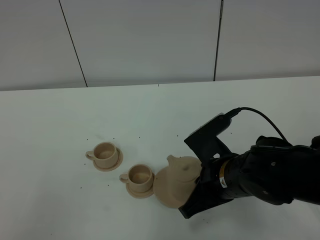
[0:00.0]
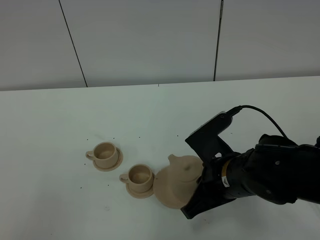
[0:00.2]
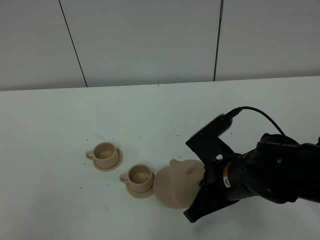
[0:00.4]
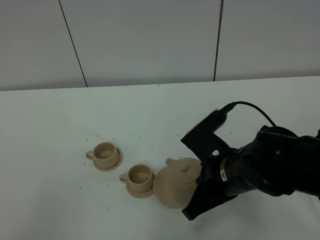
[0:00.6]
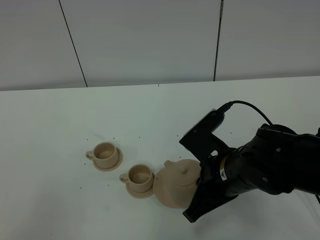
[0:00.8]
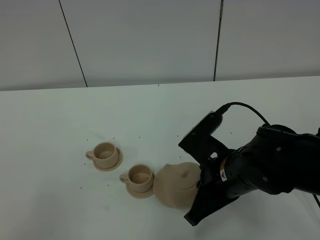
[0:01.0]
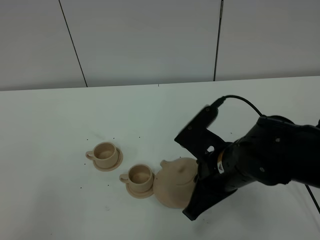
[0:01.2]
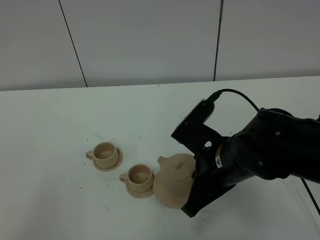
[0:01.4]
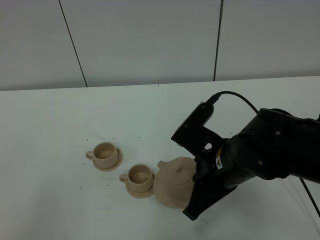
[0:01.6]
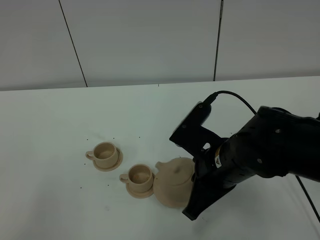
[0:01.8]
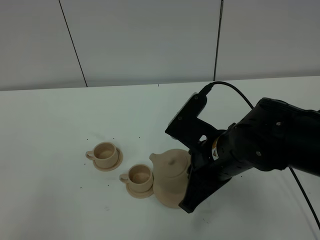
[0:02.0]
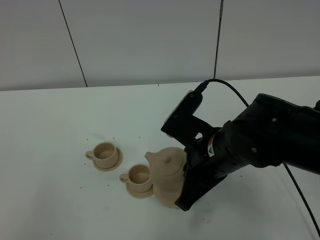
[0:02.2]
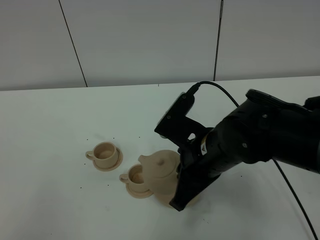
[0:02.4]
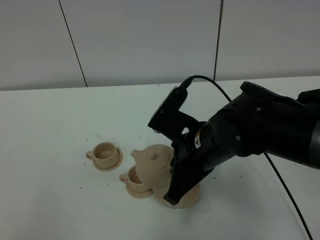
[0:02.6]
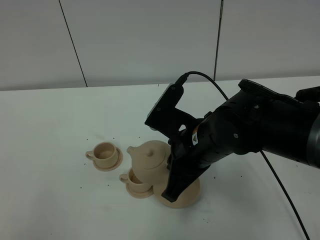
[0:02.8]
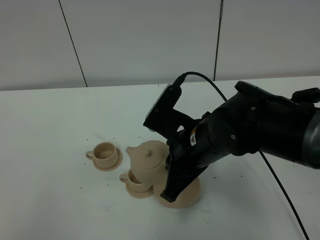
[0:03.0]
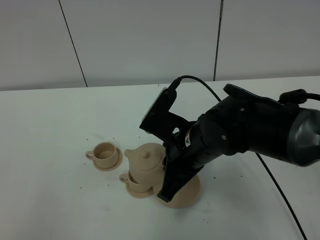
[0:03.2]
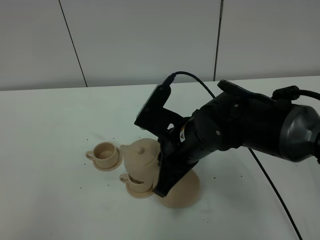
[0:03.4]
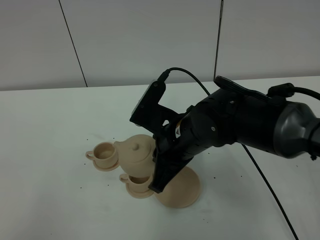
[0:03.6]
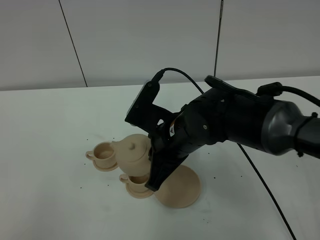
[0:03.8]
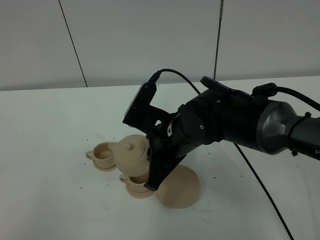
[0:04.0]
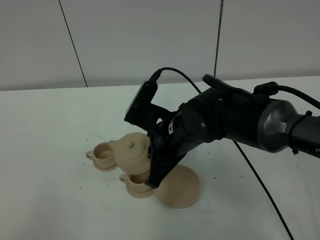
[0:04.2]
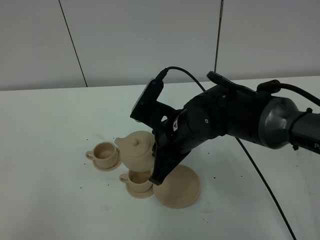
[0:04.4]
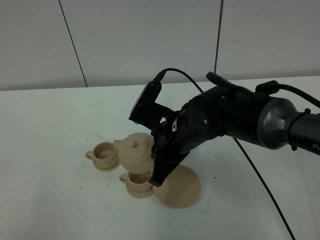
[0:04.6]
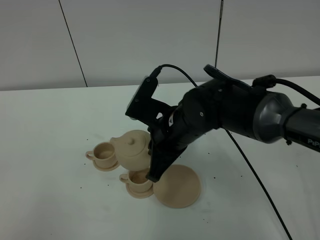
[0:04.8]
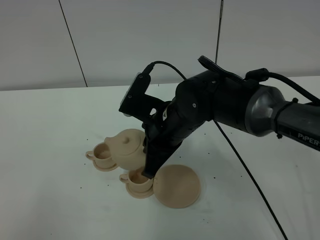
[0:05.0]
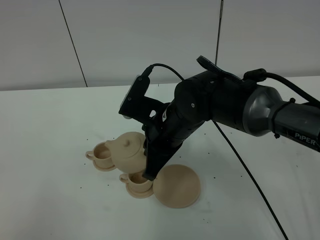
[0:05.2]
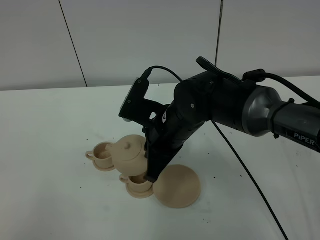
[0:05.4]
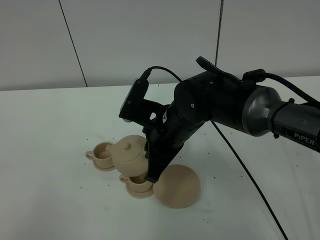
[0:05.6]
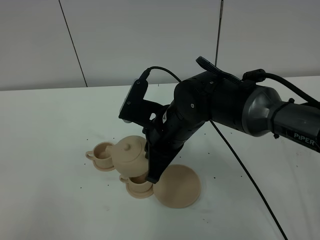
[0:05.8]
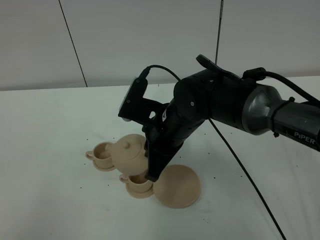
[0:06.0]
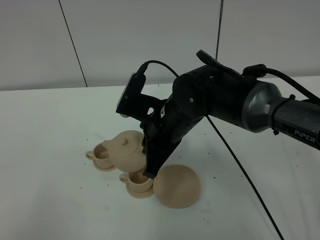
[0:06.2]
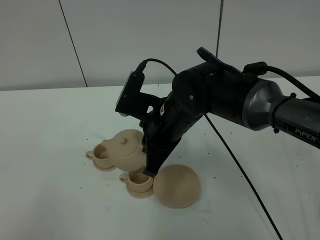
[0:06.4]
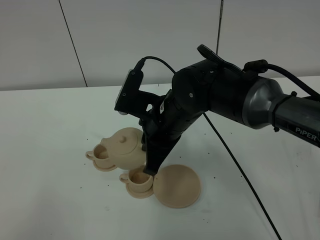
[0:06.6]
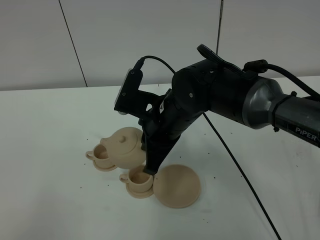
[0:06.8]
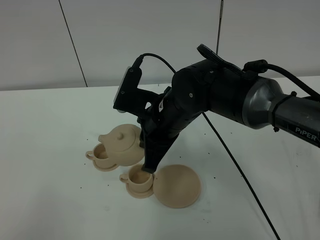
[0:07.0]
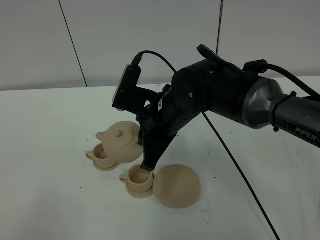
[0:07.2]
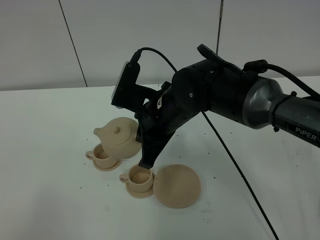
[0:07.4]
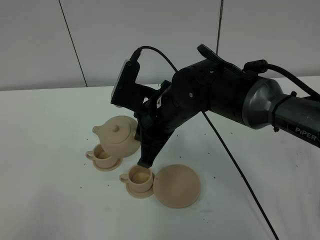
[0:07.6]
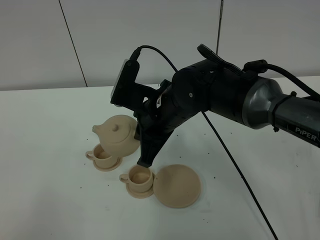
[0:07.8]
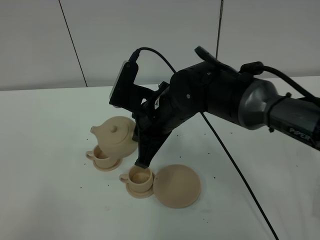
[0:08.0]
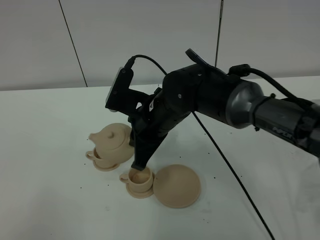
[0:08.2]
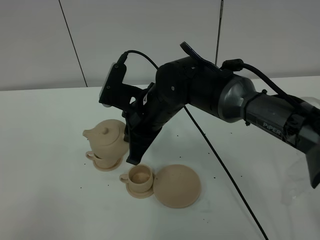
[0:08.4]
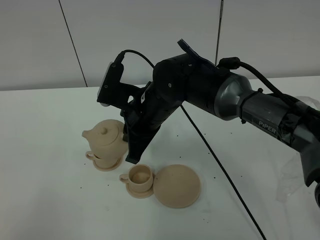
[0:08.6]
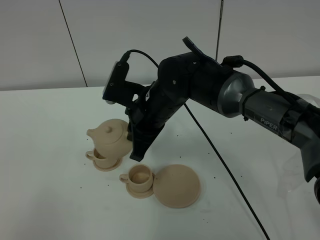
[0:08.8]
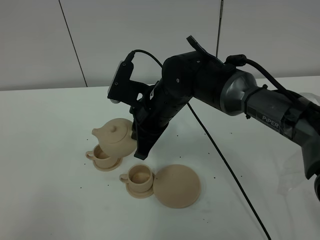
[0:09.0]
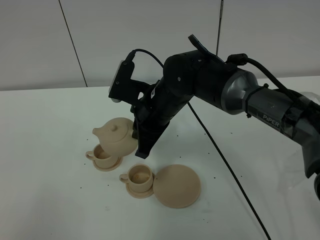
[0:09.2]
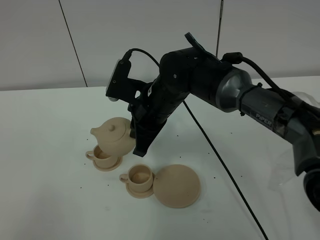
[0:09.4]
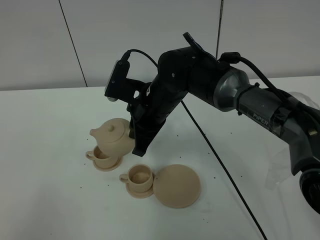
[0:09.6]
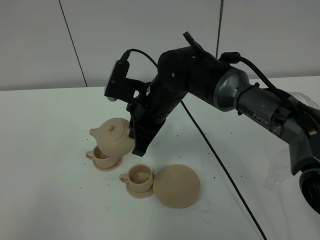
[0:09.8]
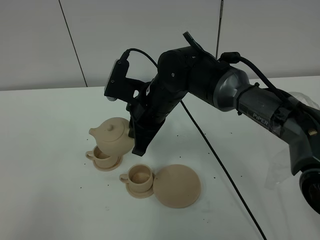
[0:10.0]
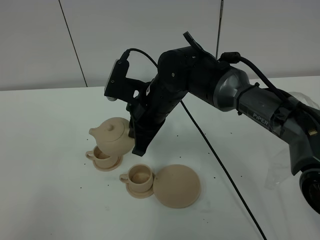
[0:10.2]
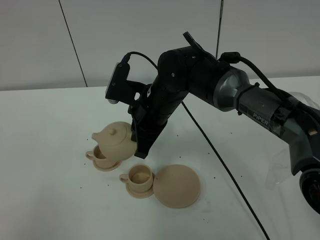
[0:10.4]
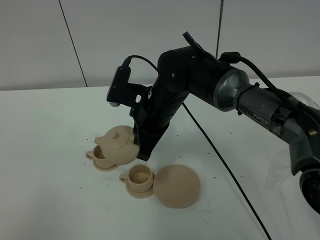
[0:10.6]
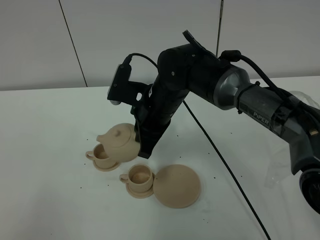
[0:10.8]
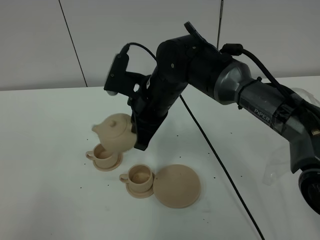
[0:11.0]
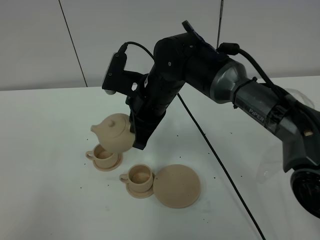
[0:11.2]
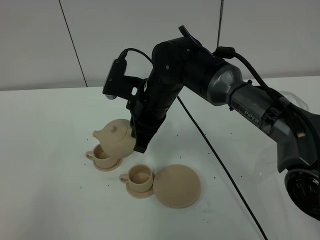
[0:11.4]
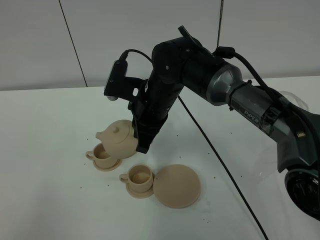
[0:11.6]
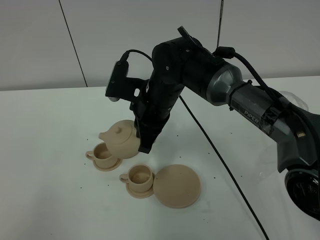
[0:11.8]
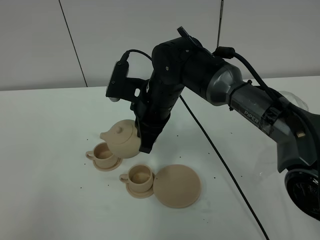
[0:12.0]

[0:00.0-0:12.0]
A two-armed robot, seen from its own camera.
Task of the whole recording: grasp the brown teapot and pour the tea into the two brown teacups one by one, put the brown teapot back in its original place.
0:00.0 to 0:01.6: The grippers move only a little.
0:01.6 to 0:03.0: There are only small adjustments of the grippers.
0:03.0 to 0:04.4: The right gripper changes place by roughly 5 cm.
0:04.4 to 0:07.6: The grippers stay close to where they were, moving slightly.
0:07.6 to 0:09.0: The grippers stay close to where they were, moving slightly.
0:09.0 to 0:10.4: The two grippers keep their place.
0:10.4 to 0:12.0: The grippers stay close to where they were, moving slightly.

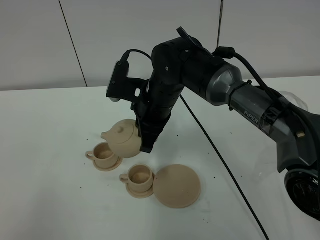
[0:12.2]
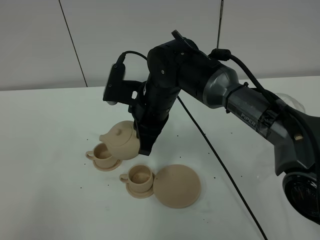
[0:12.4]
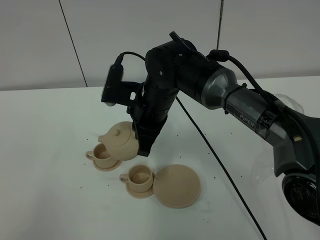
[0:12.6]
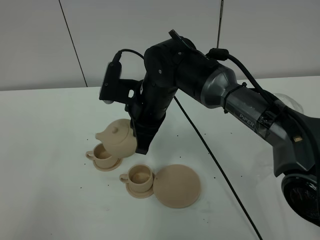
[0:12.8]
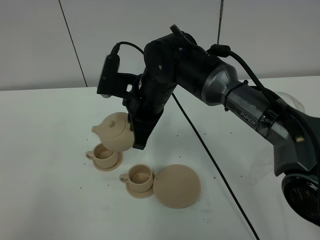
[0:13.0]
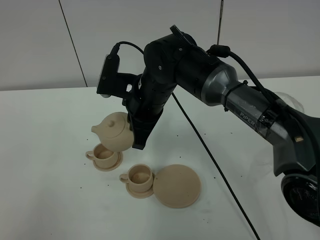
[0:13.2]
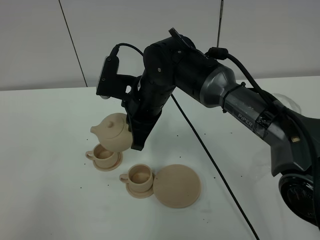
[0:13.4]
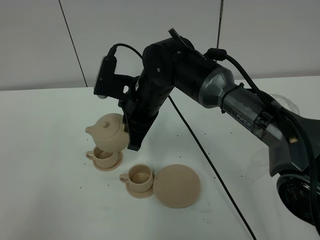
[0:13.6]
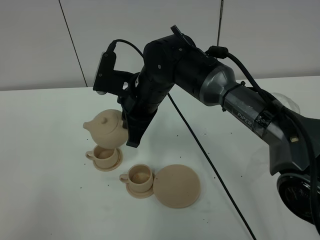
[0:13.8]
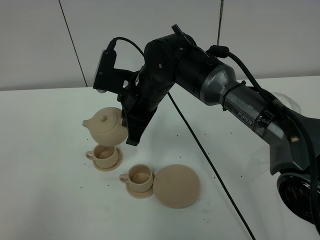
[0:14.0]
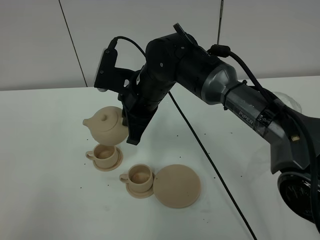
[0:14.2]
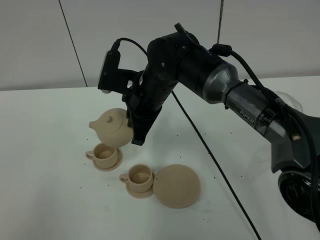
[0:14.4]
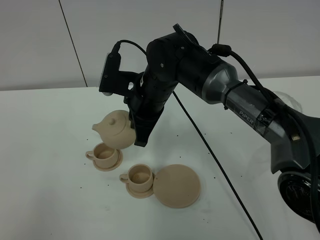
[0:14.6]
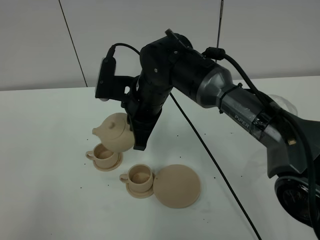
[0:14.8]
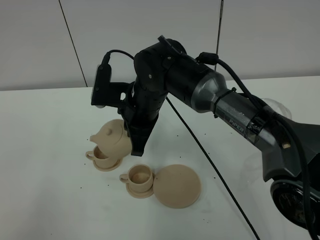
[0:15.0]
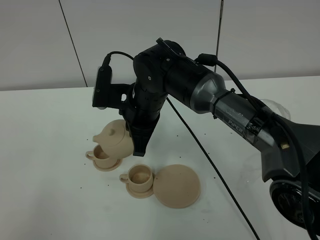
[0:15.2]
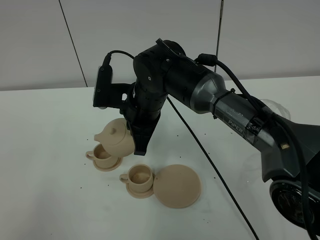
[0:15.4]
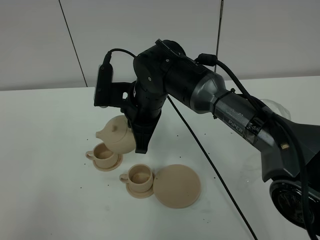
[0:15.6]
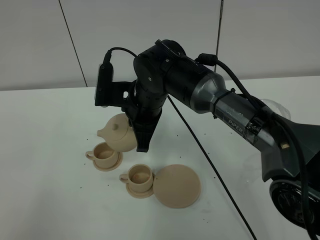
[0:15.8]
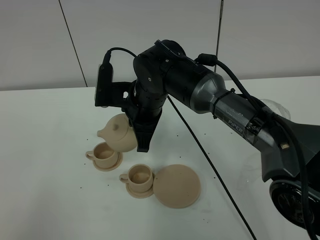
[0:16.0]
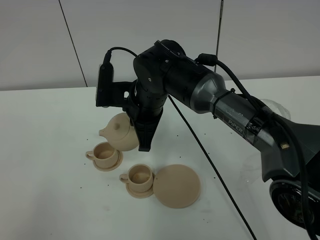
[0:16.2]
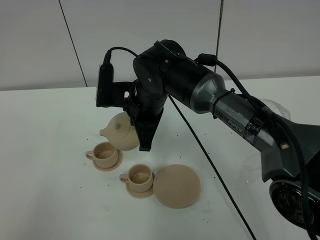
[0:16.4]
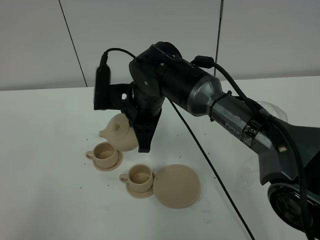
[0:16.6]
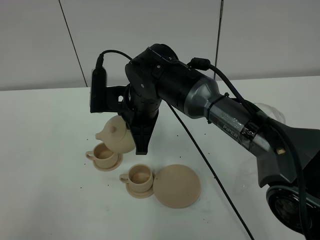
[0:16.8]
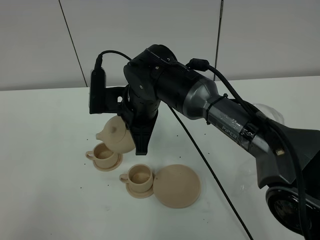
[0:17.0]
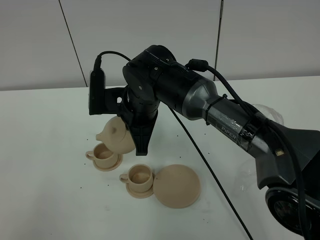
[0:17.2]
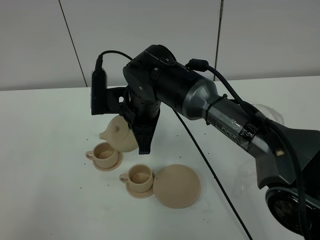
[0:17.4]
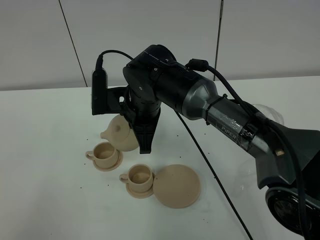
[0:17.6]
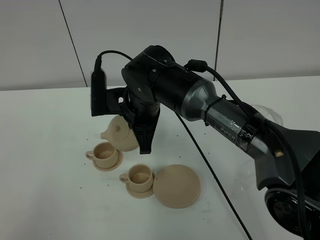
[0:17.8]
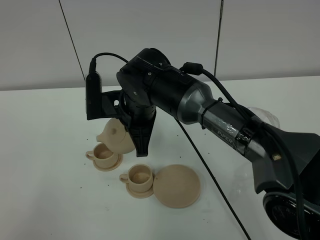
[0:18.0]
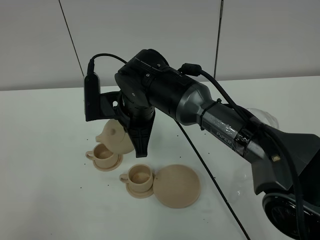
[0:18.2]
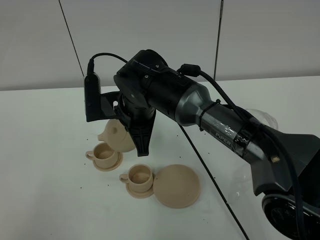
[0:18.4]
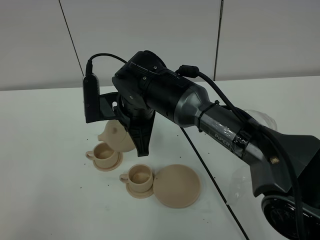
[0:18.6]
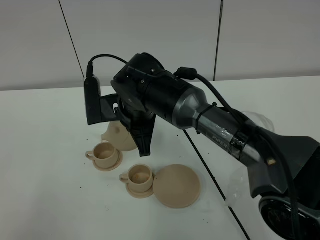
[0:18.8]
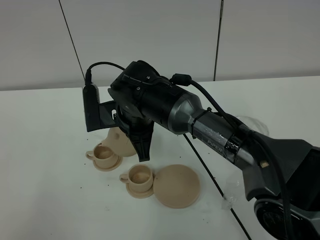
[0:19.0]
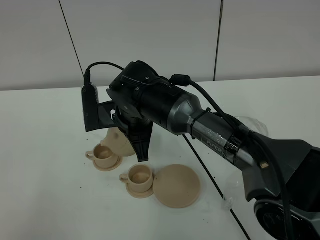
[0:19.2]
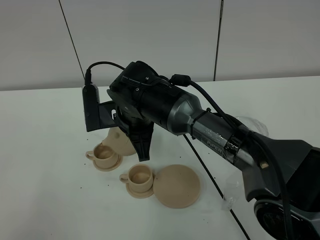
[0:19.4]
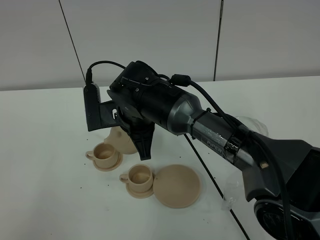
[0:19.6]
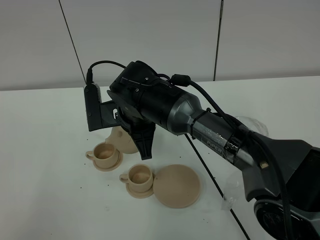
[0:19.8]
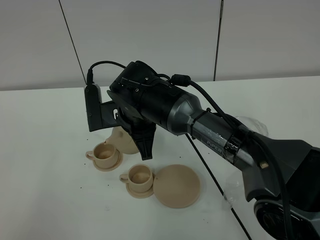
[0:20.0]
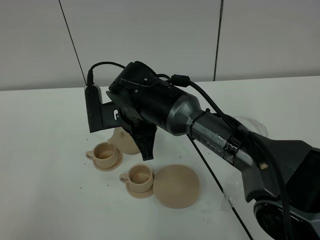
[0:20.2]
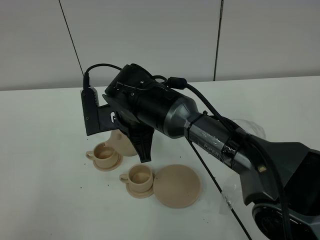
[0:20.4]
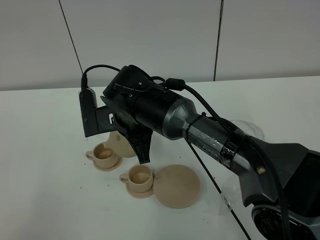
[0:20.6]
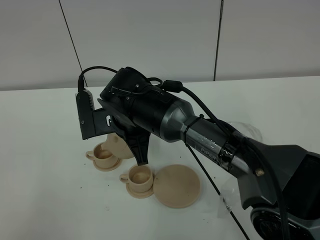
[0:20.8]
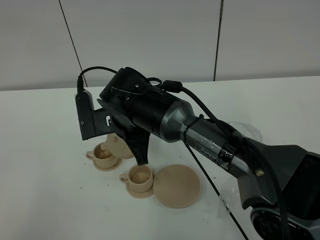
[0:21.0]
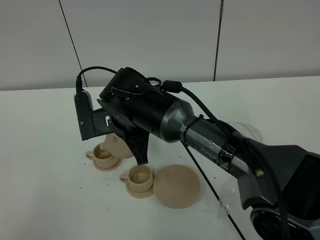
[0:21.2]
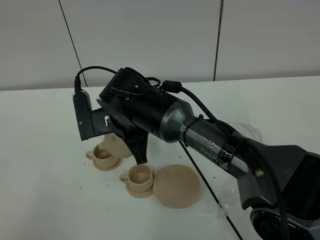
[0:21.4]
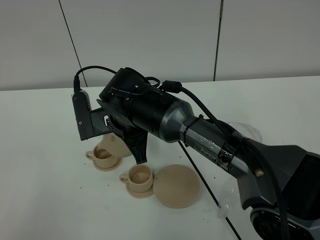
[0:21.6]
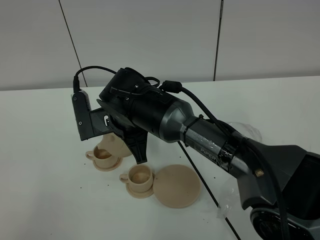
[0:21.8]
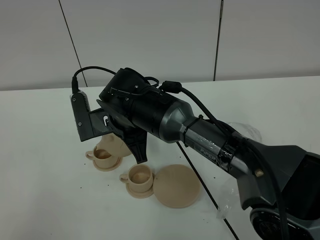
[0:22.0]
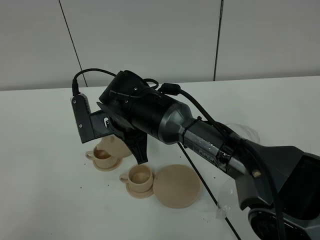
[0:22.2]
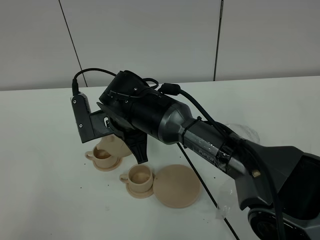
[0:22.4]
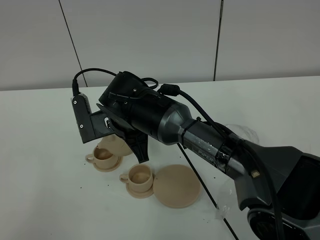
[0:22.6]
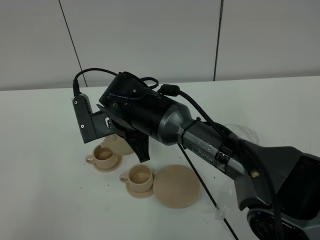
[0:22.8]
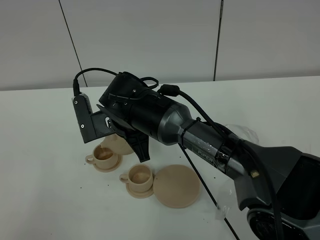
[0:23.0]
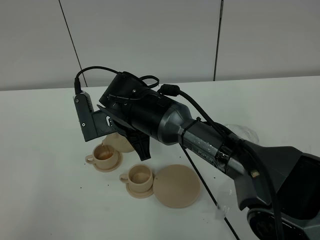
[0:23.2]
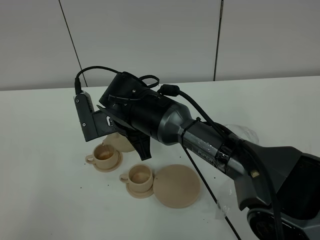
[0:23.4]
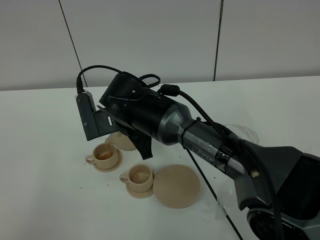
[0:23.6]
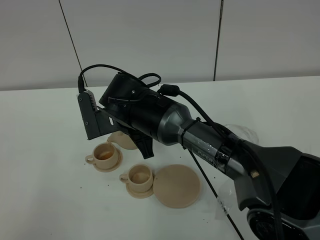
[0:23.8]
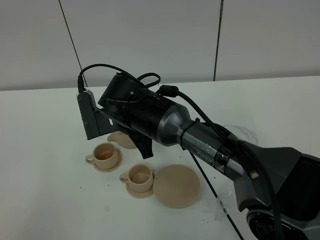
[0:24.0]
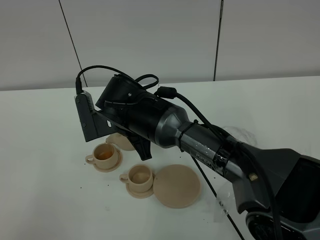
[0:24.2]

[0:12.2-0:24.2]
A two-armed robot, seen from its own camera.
Task of the whole recording: grasp the brown teapot and pour the tea into the two brown teacups one by one, put the brown teapot back in its original place.
0:12.2 to 0:16.6: The grippers make only small movements.
0:16.6 to 0:21.2: The grippers move only a little.
0:21.2 to 0:22.6: The two grippers keep their place.
0:22.6 to 0:24.2: There are only small adjustments of the grippers.
